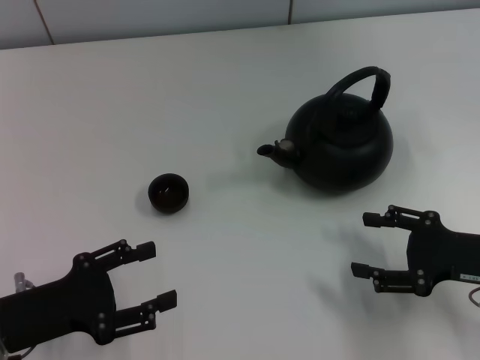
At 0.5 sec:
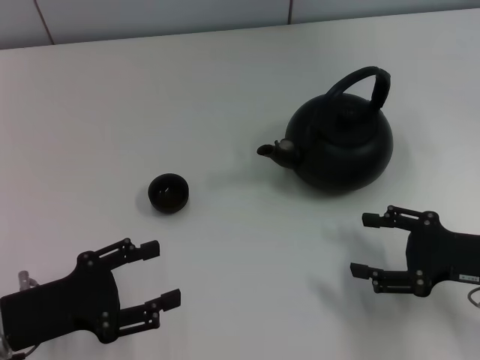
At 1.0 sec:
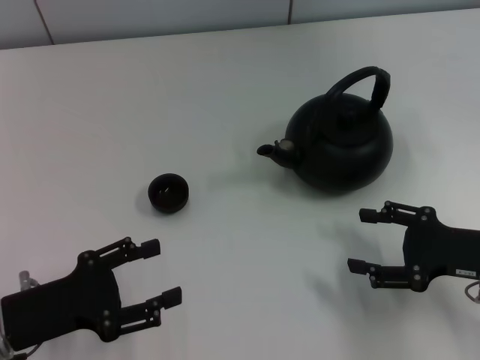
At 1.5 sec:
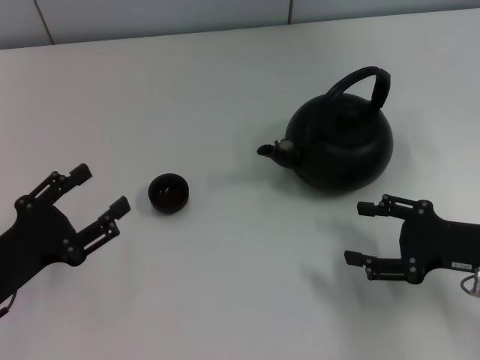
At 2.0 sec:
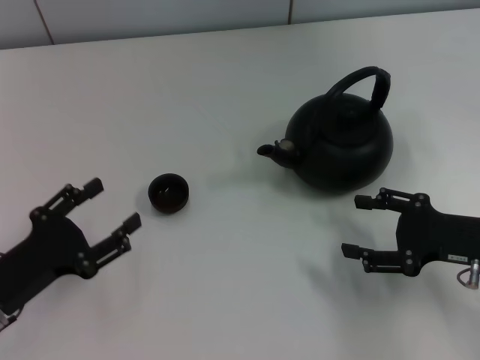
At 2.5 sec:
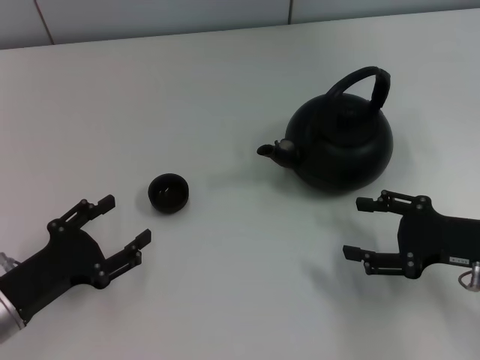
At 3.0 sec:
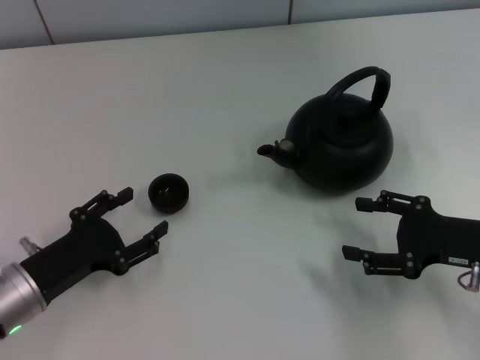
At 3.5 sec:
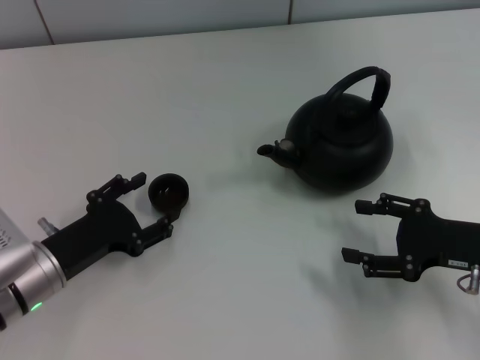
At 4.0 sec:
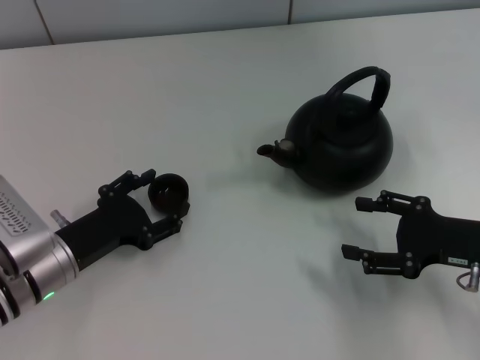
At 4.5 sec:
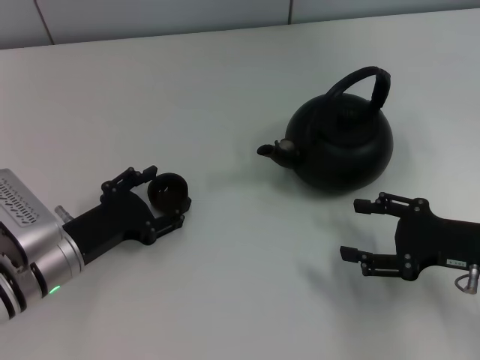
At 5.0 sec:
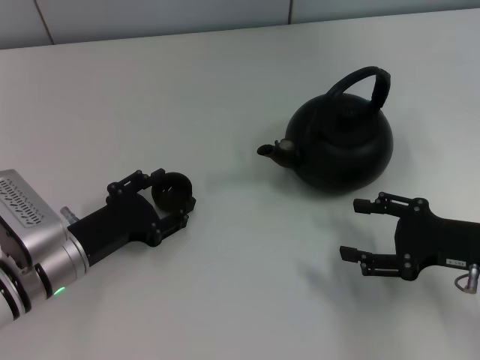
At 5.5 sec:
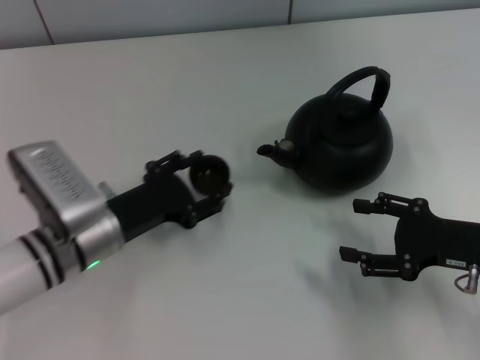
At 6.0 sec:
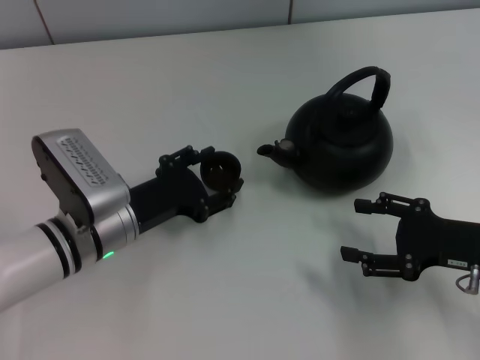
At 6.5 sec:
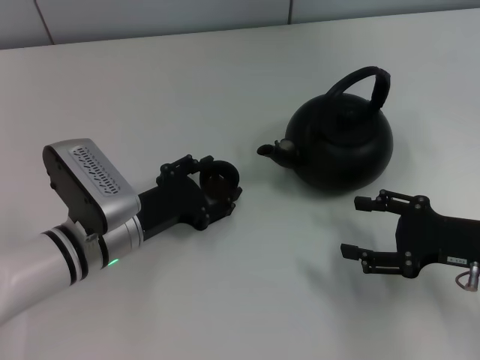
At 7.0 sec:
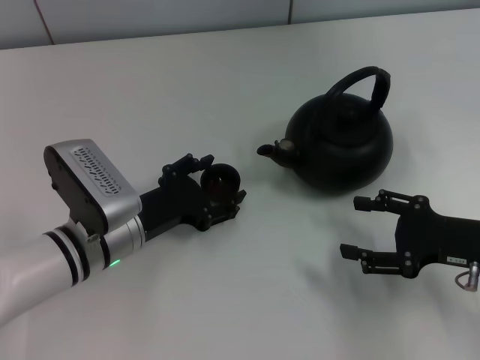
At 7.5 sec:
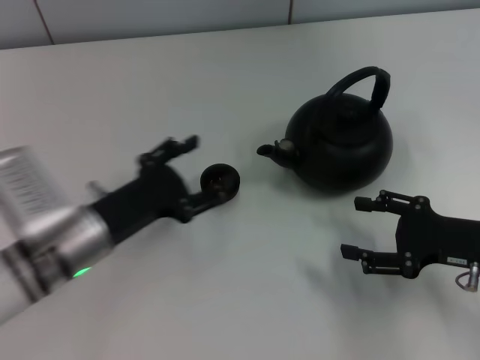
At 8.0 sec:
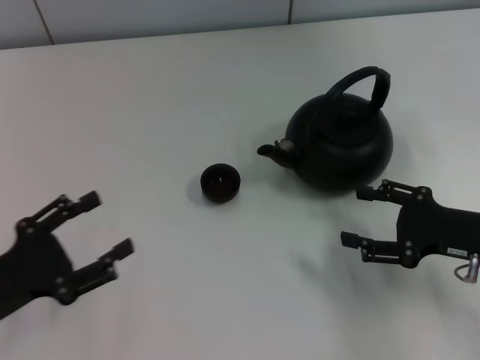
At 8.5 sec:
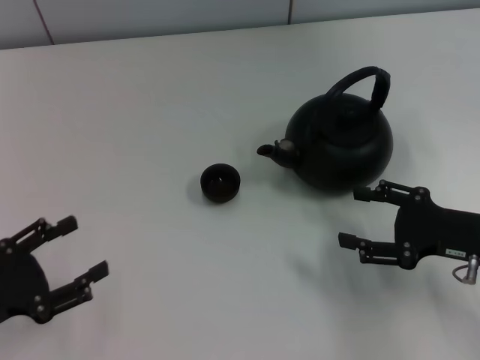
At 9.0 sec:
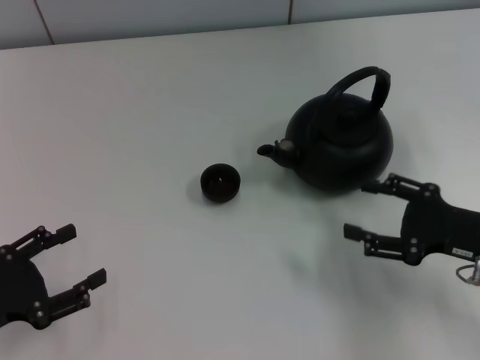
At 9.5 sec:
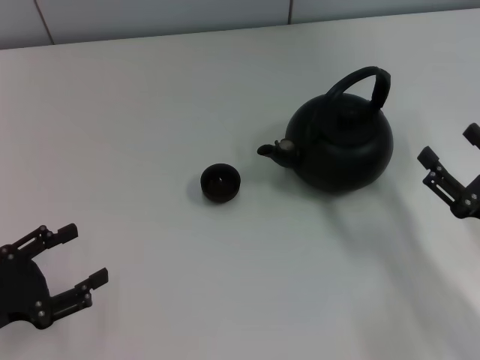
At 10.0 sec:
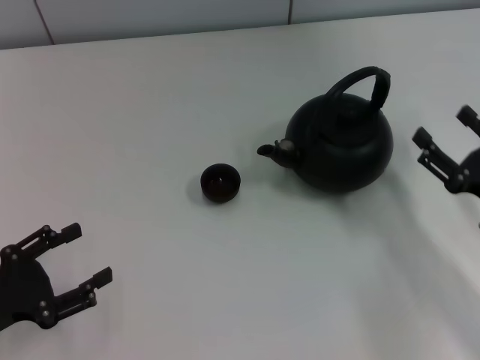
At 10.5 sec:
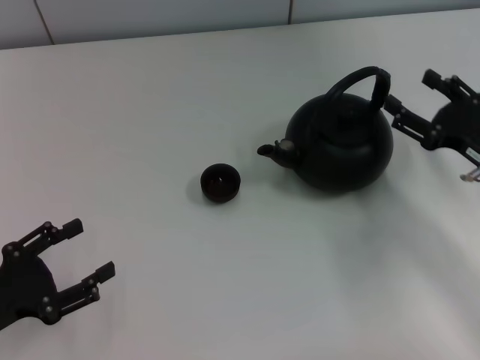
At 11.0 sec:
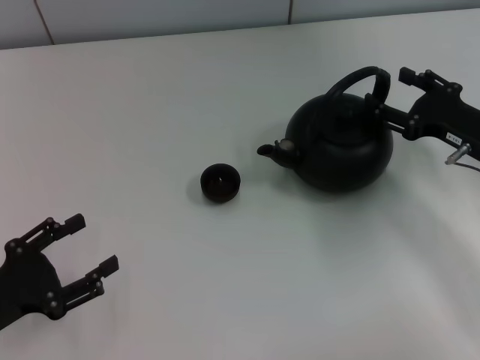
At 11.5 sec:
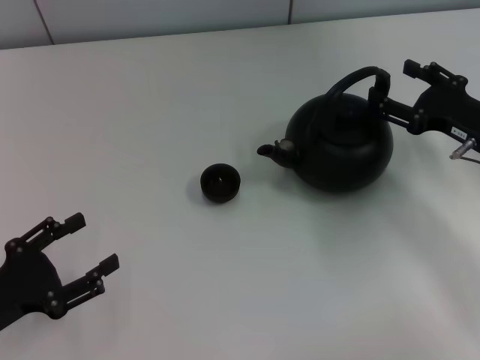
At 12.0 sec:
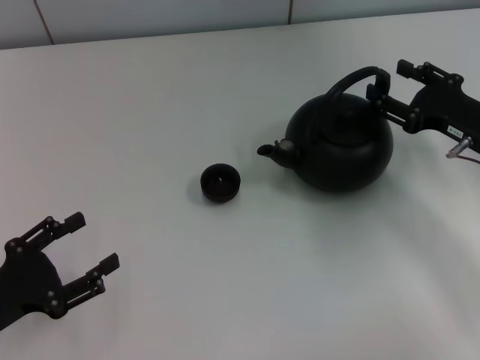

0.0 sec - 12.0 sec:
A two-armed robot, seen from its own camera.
Task of the whole recording: Grasp the handle of the teapot with one hand and pour tea into the teacup.
Step, 0.0 sec - 5.0 sec: Pick up the teacup with the left gripper.
Step, 5.5 sec - 7.0 sec: Place the teacup in the center of view with the left gripper.
2.0 sec - 4.0 sec: The left gripper goes approximately 10 cm to the right and forward.
4.0 sec - 6.0 sec: The left gripper goes some 5 cm to the right.
6.0 sec - 8.0 sec: The left gripper heads to the left and backward, covering roughly 15 cm, and opens up.
10.0 sec - 12.0 sec: The right gripper shifts about 10 cm forward.

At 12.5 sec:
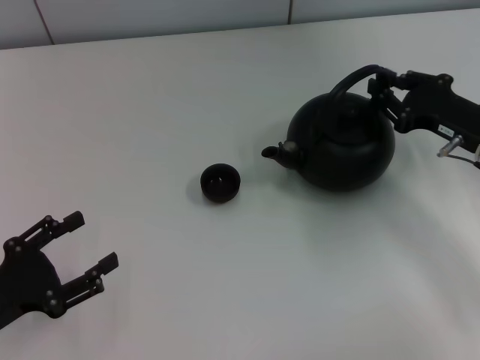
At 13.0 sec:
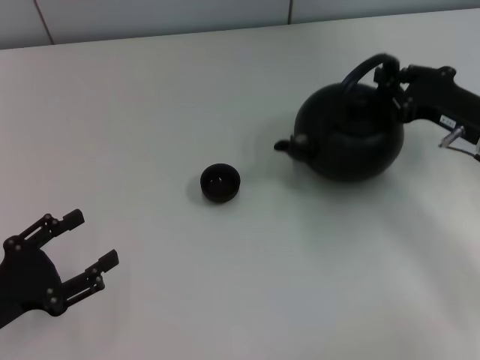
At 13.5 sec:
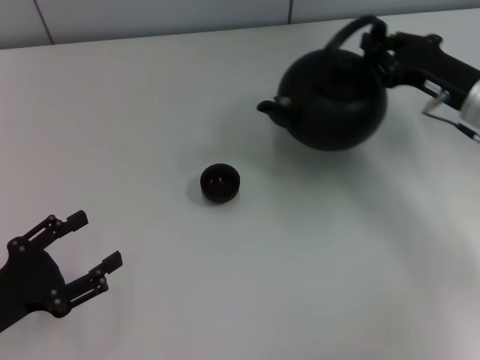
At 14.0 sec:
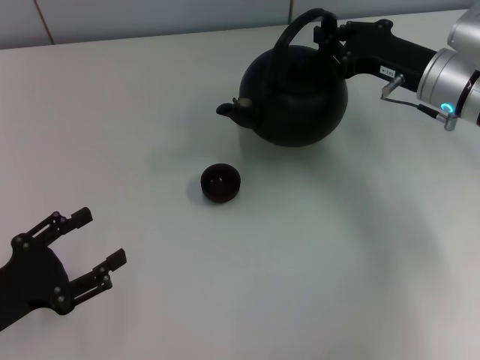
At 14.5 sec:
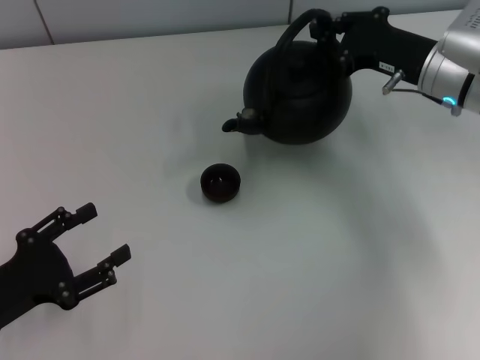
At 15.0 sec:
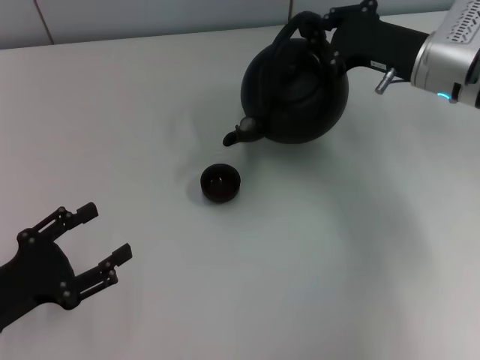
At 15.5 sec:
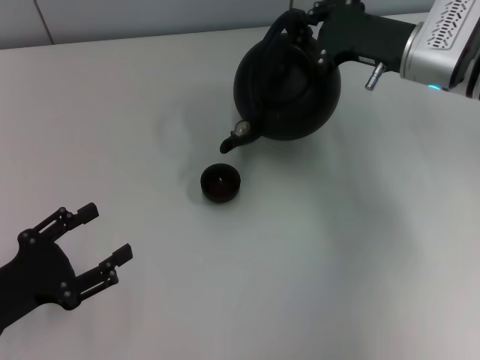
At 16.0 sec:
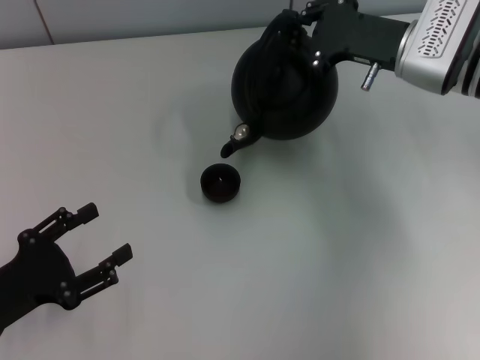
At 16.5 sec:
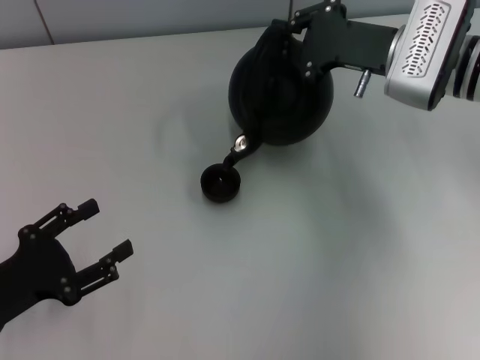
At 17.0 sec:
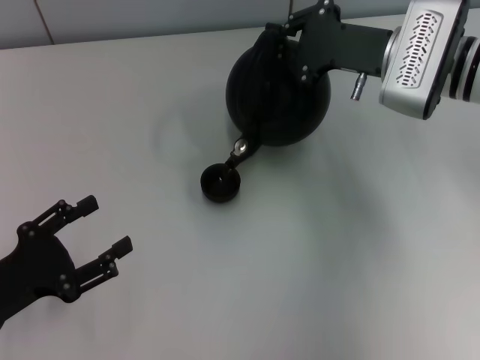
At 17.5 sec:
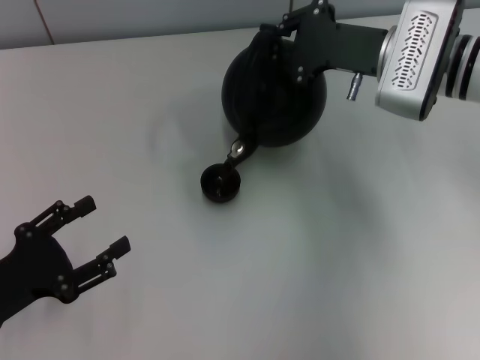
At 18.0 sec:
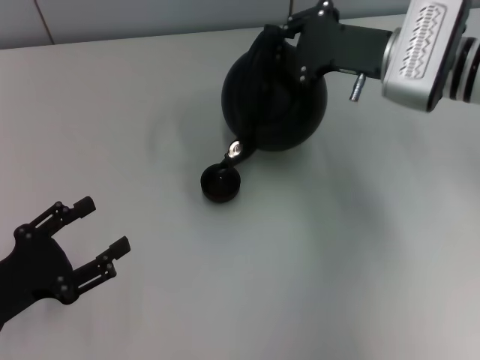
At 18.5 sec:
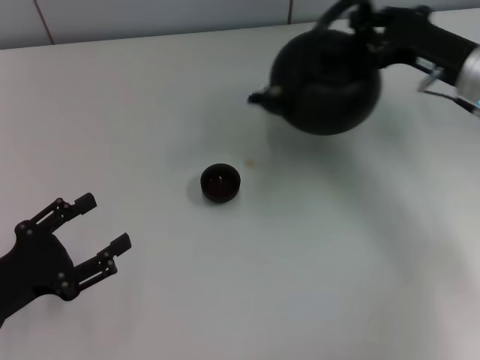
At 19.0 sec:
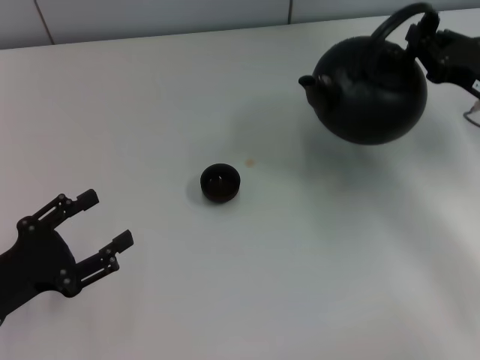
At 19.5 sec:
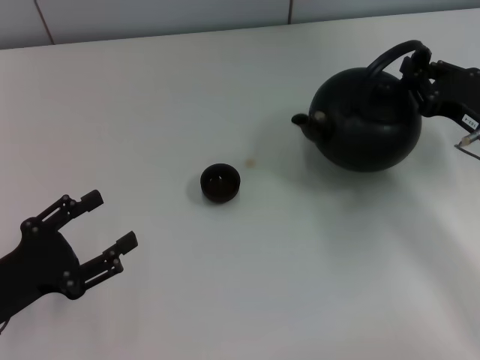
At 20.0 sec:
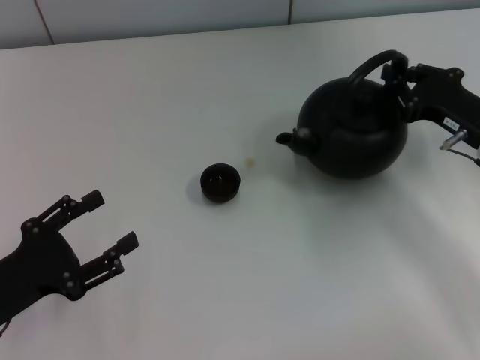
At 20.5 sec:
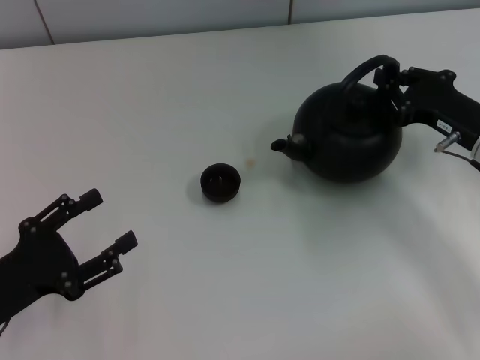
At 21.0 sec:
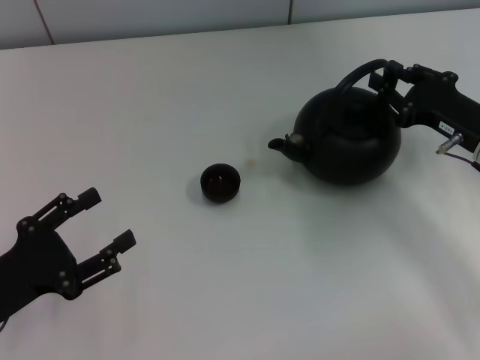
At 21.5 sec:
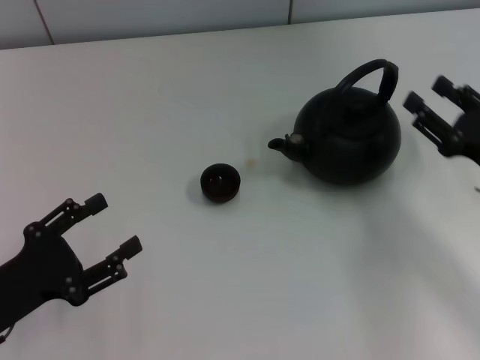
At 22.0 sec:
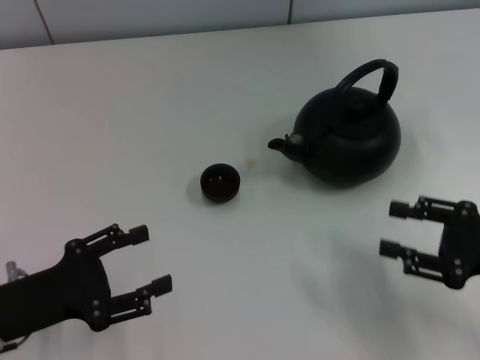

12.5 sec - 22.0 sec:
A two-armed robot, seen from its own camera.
Task of the whole recording: Grasp the handle of the teapot with one hand and pour tea into the teacup.
Step, 18.5 sec - 21.0 sec: Put down the teapot with the right gripper.
12.5 sec - 14.5 sec: The right gripper travels forward and to the left by roughly 10 cm, and closes up.
16.5 sec - 18.0 sec: There are only small adjustments of the grippers.
18.0 sec - 20.0 sec: The right gripper travels to the right, backward and downward by some 15 cm.
20.0 sec - 22.0 sec: The right gripper goes roughly 10 cm backward, and opens up.
